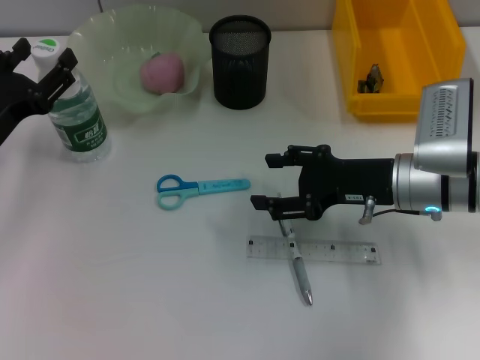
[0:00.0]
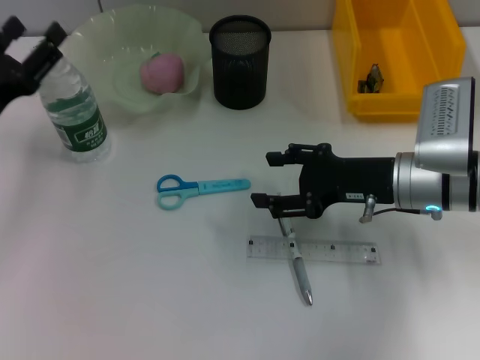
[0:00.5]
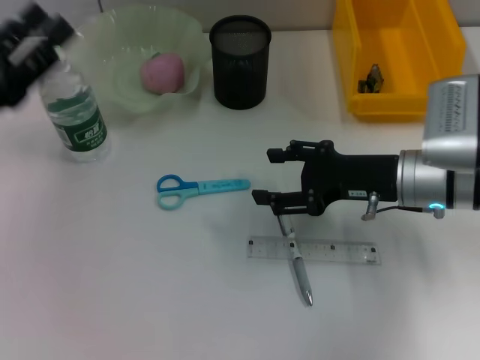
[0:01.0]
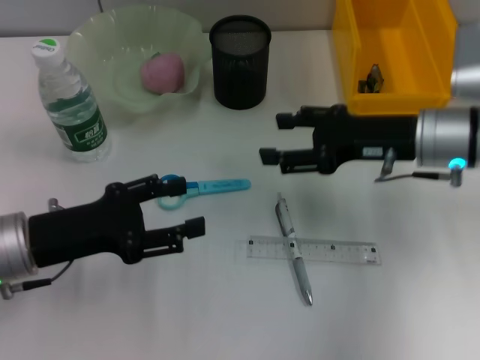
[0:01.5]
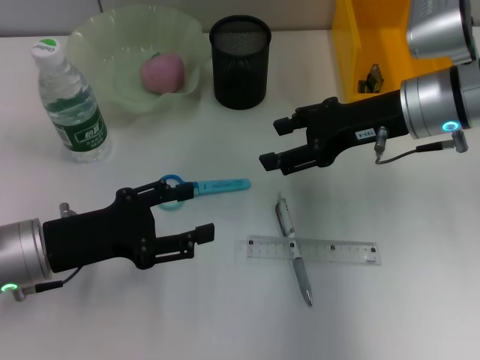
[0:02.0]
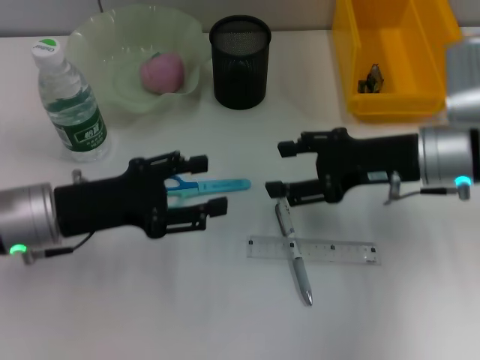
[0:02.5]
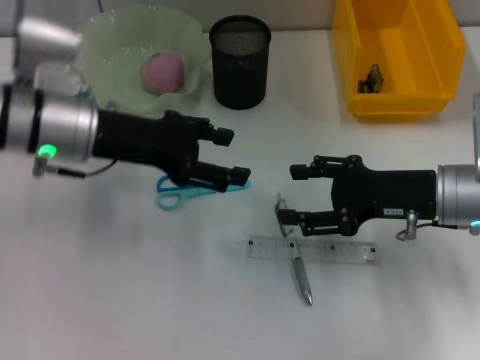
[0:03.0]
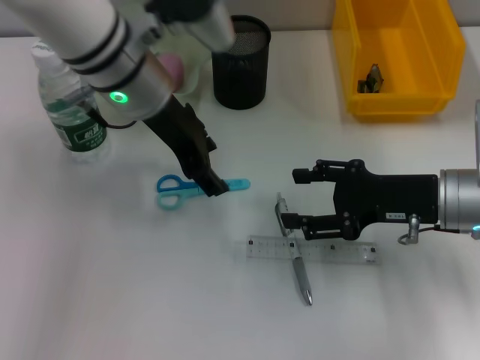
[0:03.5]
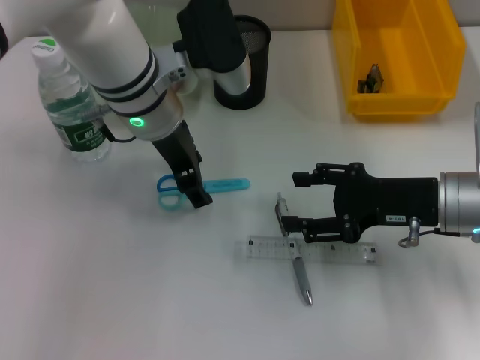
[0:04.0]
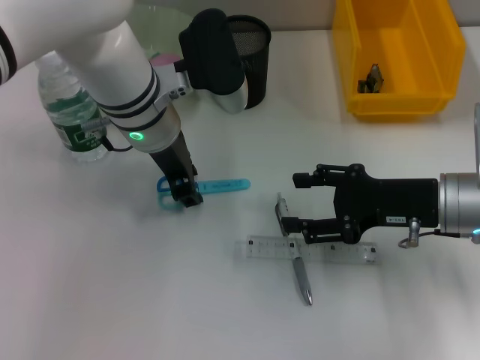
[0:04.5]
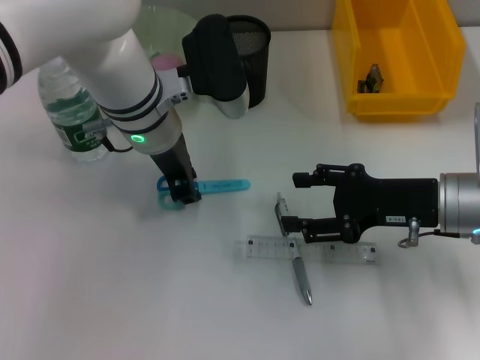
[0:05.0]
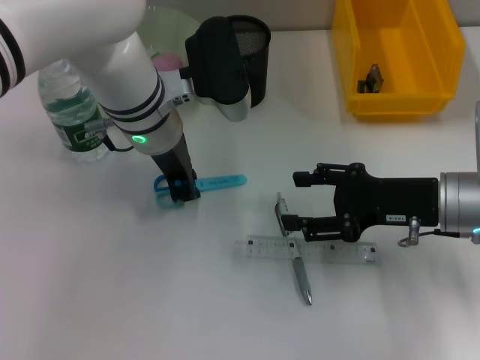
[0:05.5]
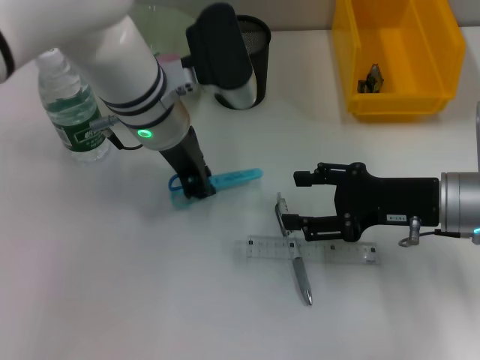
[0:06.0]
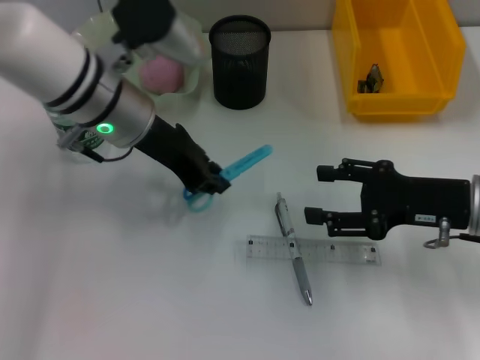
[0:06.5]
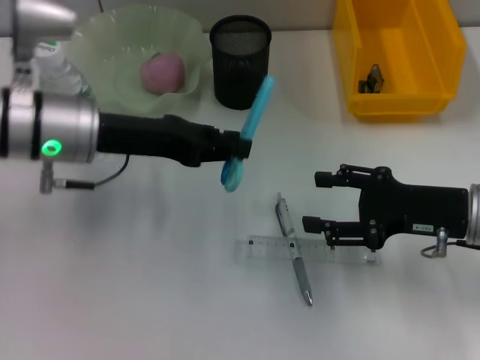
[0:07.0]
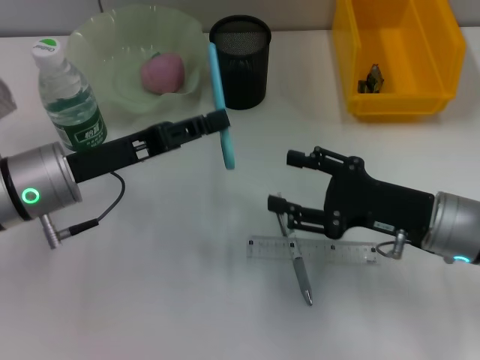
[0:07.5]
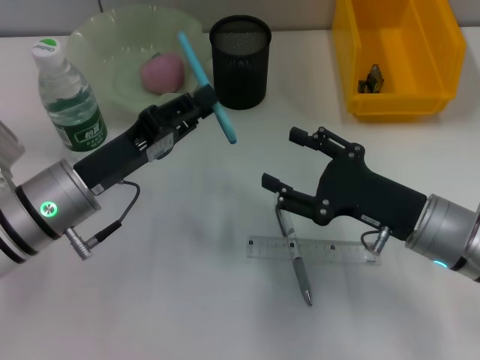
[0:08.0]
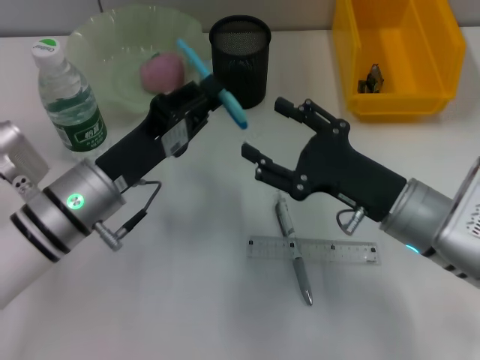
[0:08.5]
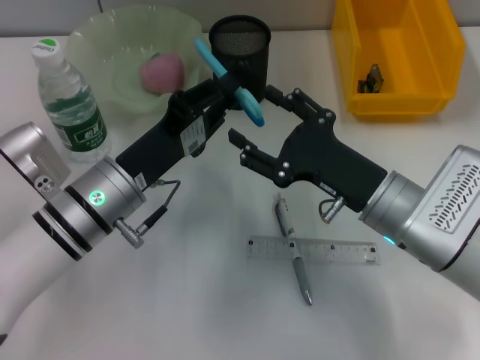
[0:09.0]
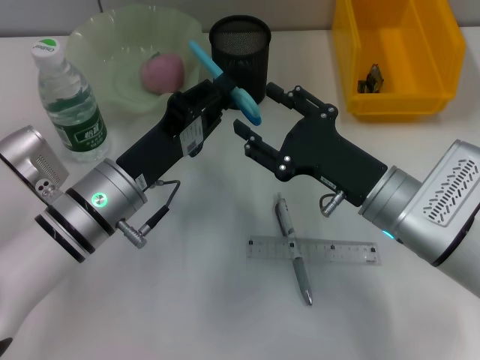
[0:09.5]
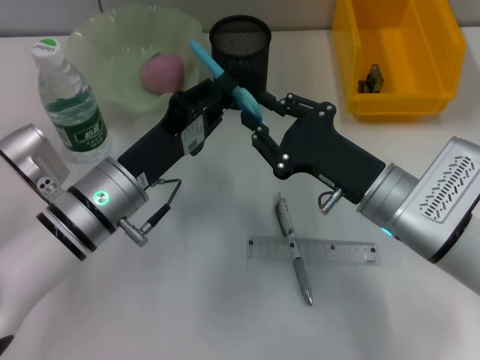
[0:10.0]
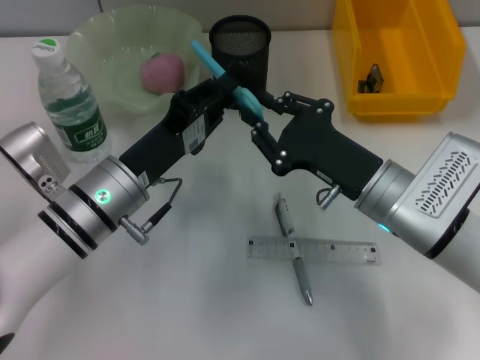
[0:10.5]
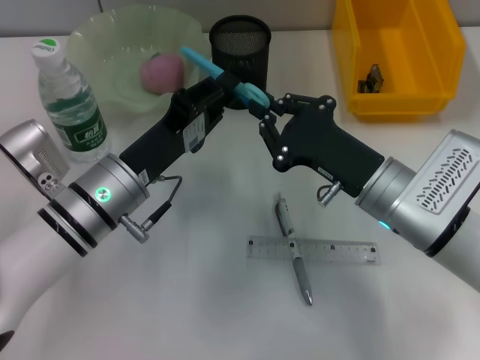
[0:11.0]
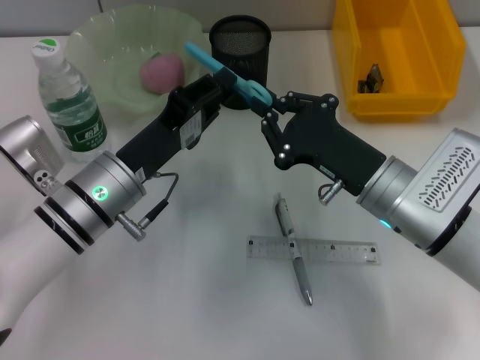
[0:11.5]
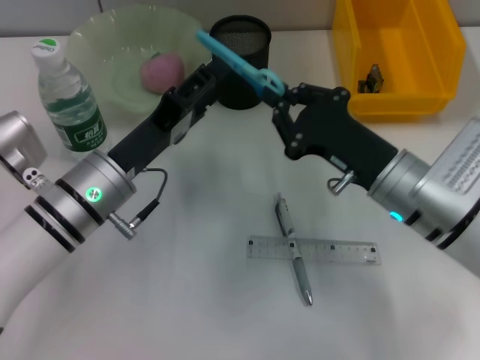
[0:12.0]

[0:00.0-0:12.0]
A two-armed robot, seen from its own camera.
Step, 0:01.0 to 0:06.0: Grab the blue scissors with the left hand.
0:00.0 to 0:02.0: The left gripper goes some 5 cm to the right and backward. The right gripper moves upward, about 5 cm.
0:02.0 to 0:04.0: The right gripper is displaced backward and downward by about 10 cm. Meanwhile the left gripper moves to the right, forward and upward, roughly 25 cm.
0:04.0 to 0:06.0: The left gripper closes its fingers.
0:06.0 to 0:08.0: The left gripper goes roughly 15 cm to the left, backward and downward; the right gripper shifts by some 5 cm.
0:08.0 to 0:10.0: The right gripper changes place by roughly 5 cm, and closes.
0:10.0 to 0:12.0: The left gripper opens up; the right gripper closes its fingers.

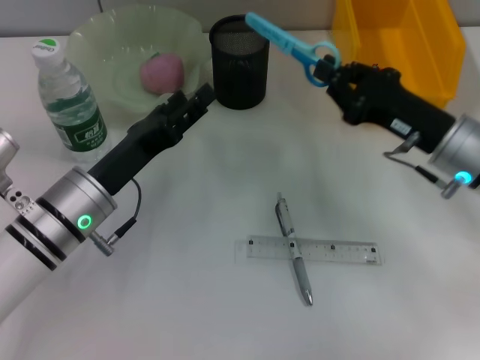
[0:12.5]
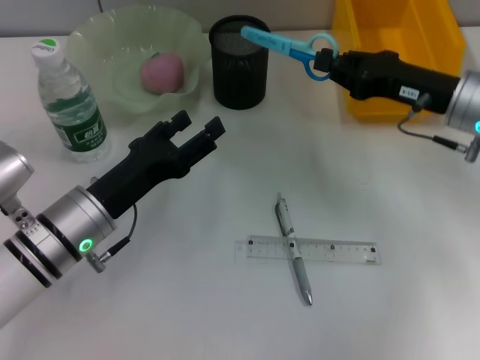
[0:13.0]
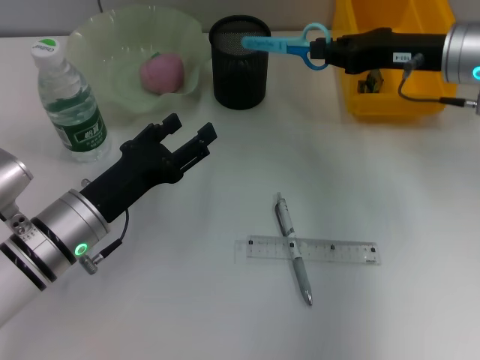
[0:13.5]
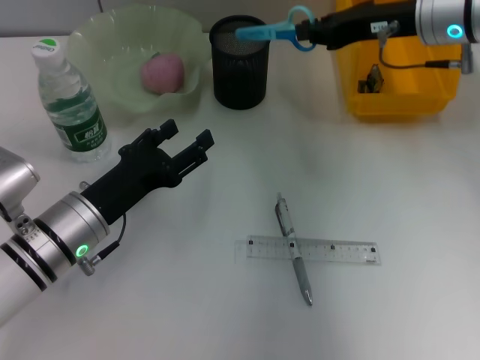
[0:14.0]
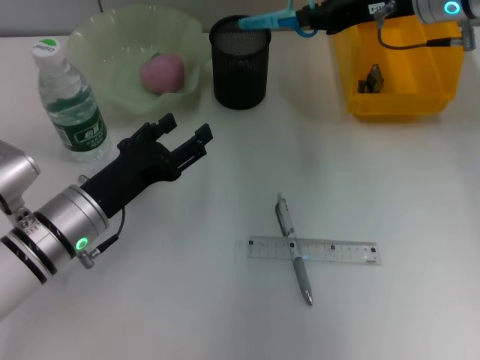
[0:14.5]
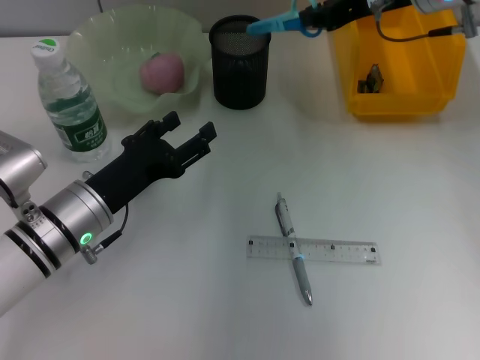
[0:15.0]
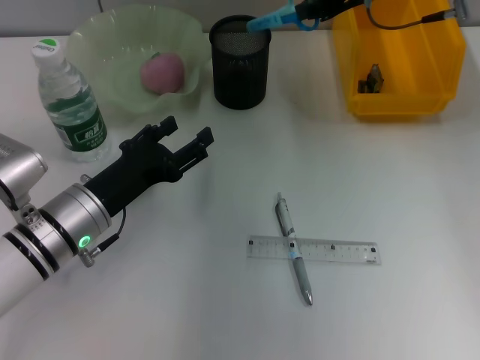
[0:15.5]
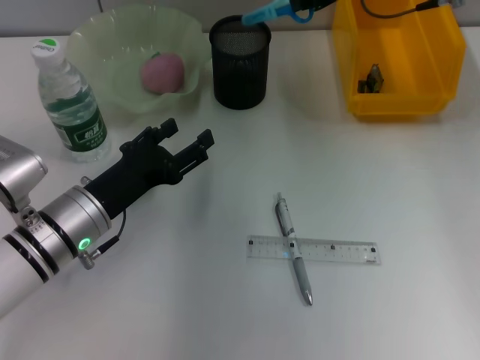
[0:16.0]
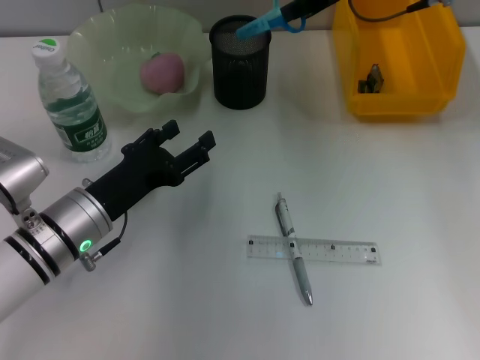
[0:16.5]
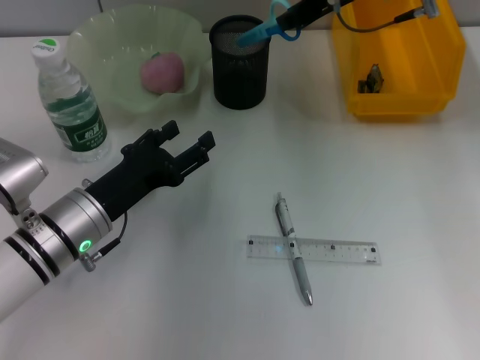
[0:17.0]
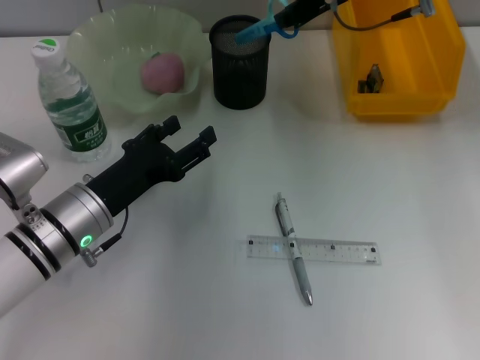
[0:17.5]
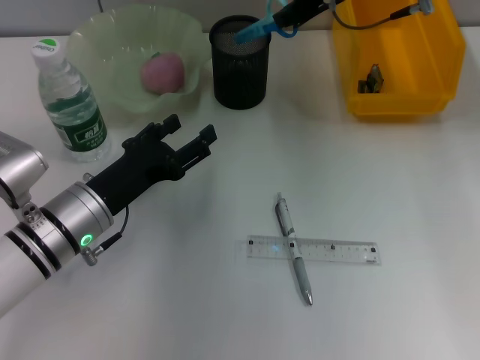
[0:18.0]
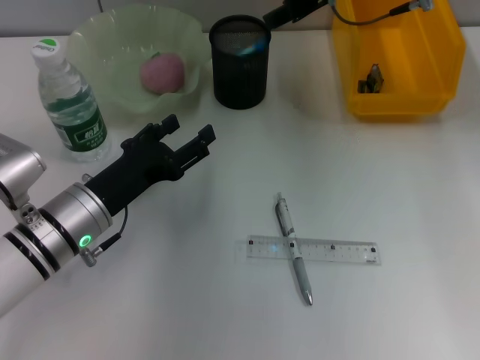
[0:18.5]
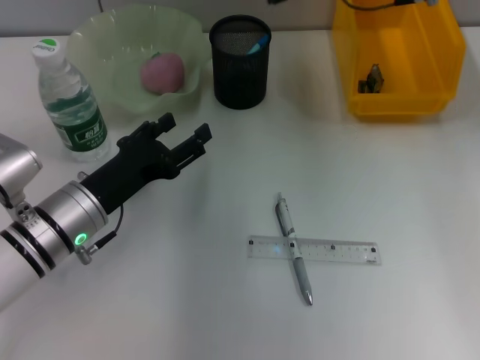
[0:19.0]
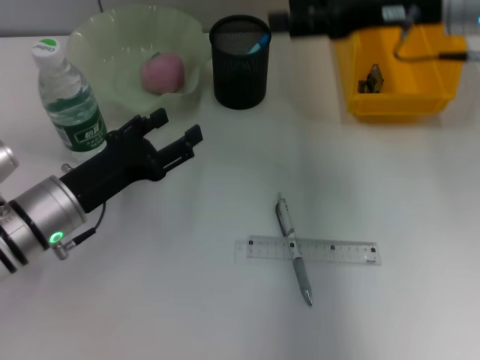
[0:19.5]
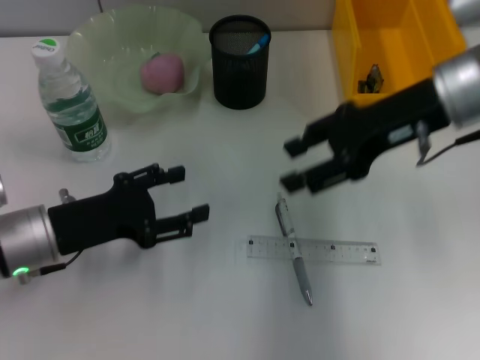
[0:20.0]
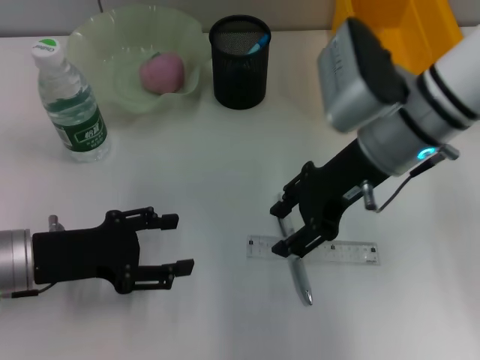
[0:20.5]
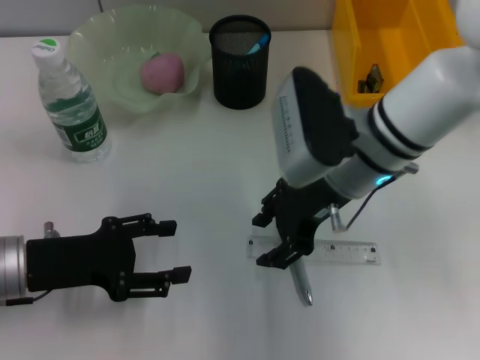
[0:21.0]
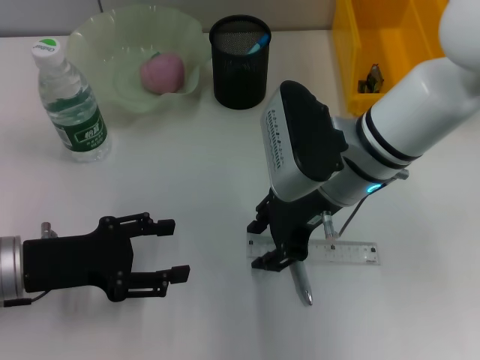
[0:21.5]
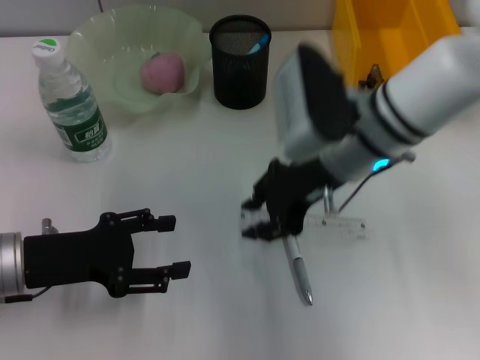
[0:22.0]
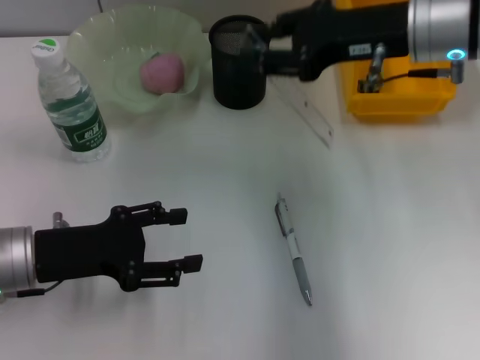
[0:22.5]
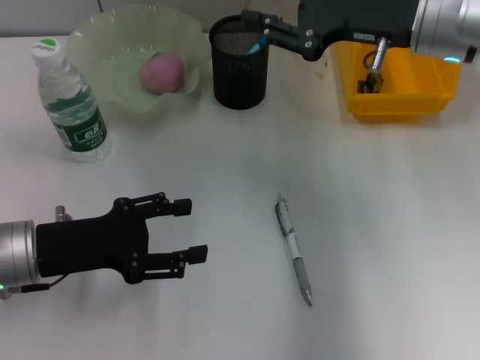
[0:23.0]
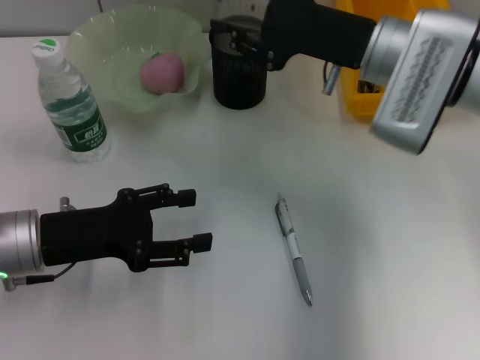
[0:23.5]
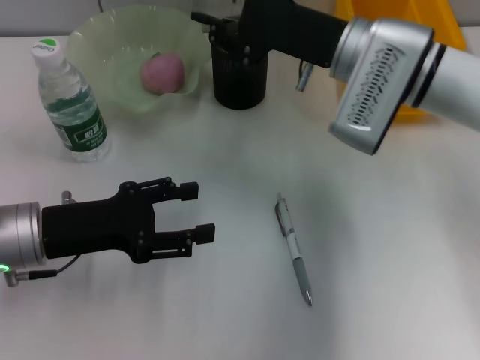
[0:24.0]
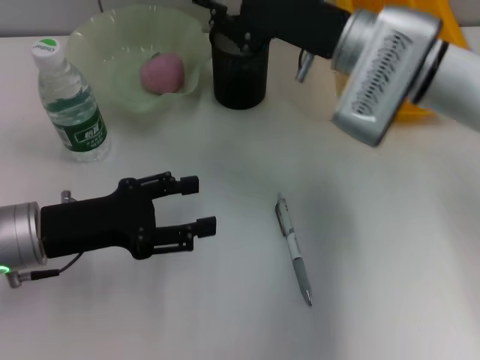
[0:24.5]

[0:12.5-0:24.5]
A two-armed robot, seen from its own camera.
Step, 0:12.5 to 0:18.5: Place the blue scissors into the pen holder with the right hand.
Step, 0:19.5 to 0:21.5: Grab the ruler with the right hand.
0:12.5 to 0:14.5: The right gripper travels upward and forward by approximately 15 cm.
0:14.5 to 0:16.5: The right gripper shifts by some 5 cm.
0:16.5 to 0:18.5: There are only small adjustments of the grippers.
0:18.5 to 0:20.5: The left gripper shifts roughly 5 cm to the left; the right gripper shifts some 15 cm backward and downward, and opens up.
0:20.5 to 0:22.5: The right gripper changes place by some 5 cm.
0:22.5 to 0:24.5: The right gripper travels downward by about 5 cm.

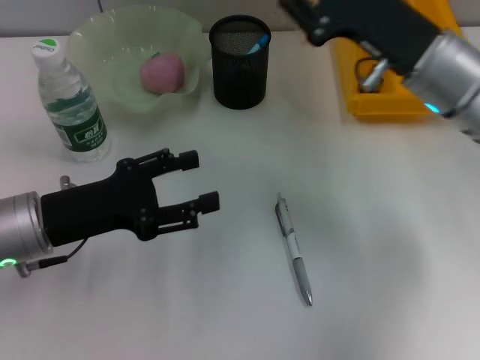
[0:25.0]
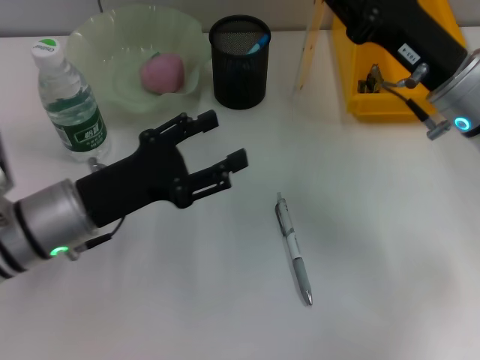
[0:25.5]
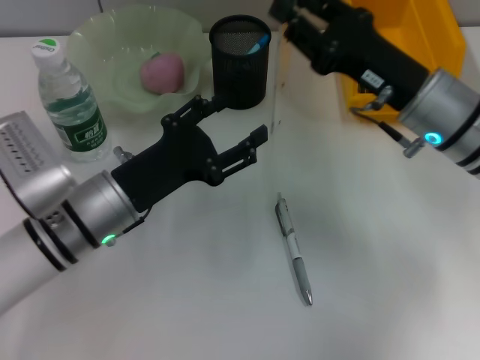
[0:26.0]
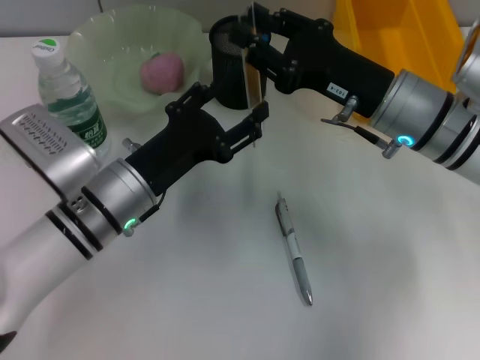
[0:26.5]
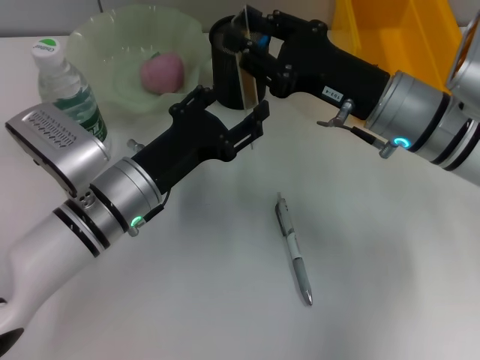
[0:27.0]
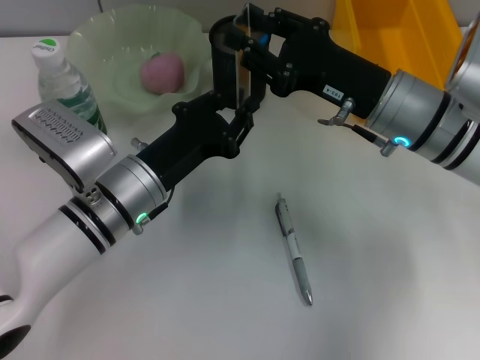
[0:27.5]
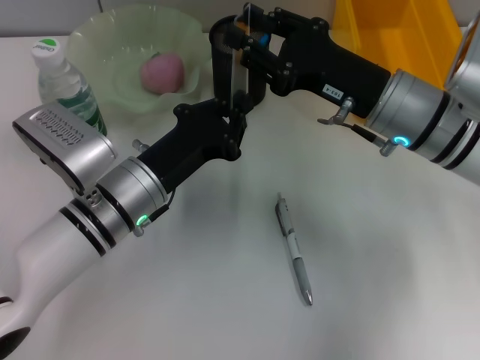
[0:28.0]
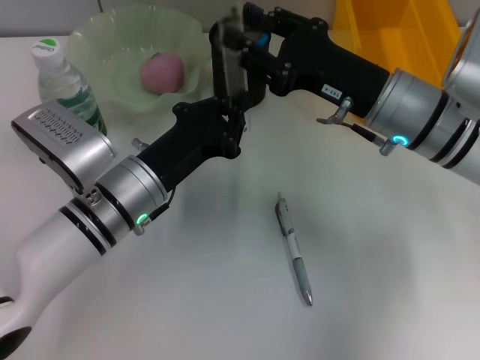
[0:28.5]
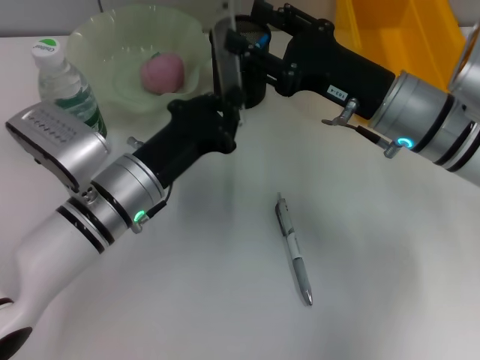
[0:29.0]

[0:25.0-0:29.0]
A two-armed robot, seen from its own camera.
0:25.0 to 0:27.0: The left gripper is displaced to the right by approximately 10 cm.
0:27.0 to 0:29.0: The left gripper closes up.
